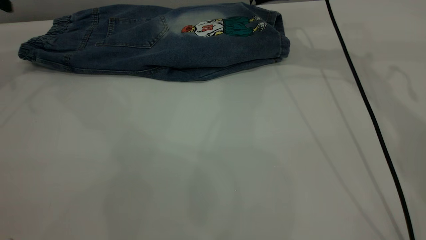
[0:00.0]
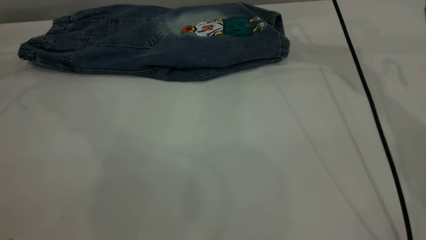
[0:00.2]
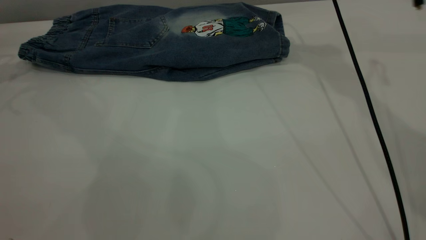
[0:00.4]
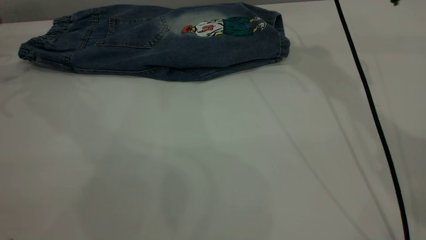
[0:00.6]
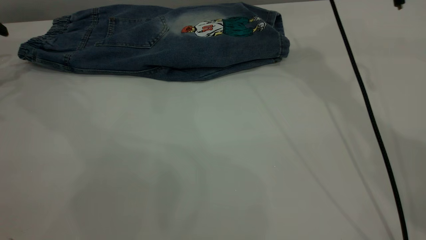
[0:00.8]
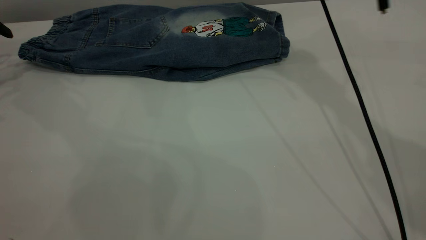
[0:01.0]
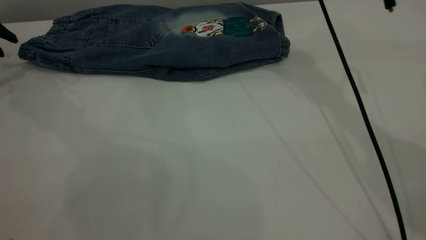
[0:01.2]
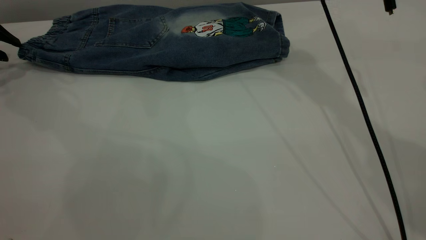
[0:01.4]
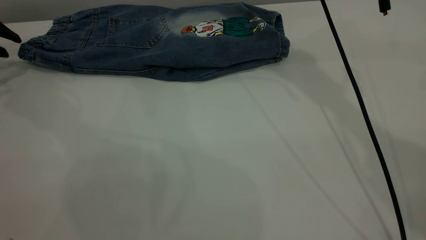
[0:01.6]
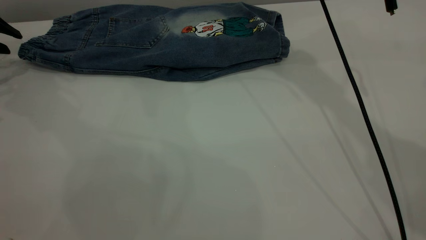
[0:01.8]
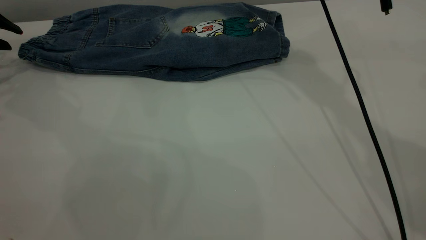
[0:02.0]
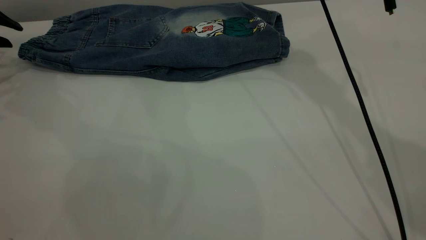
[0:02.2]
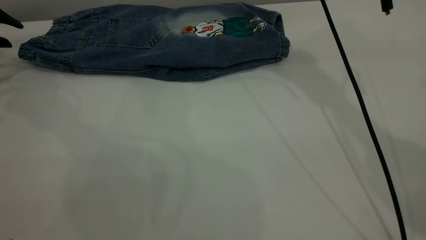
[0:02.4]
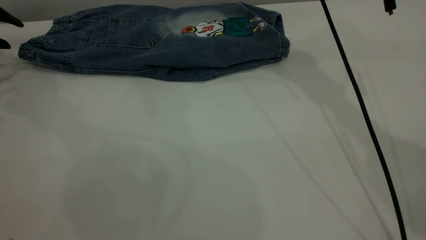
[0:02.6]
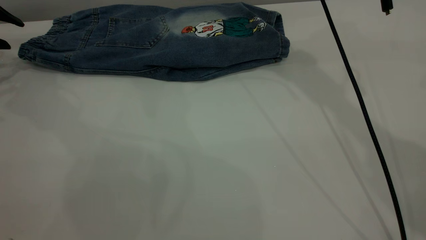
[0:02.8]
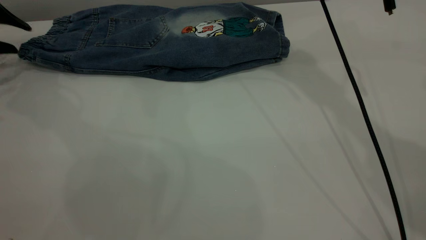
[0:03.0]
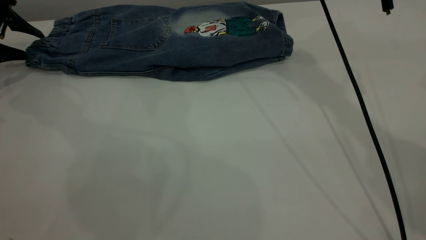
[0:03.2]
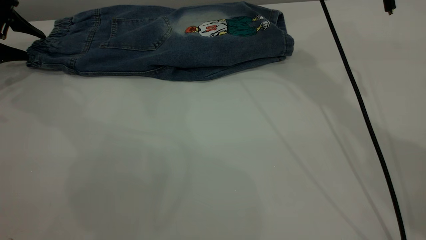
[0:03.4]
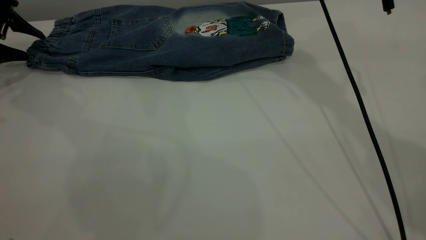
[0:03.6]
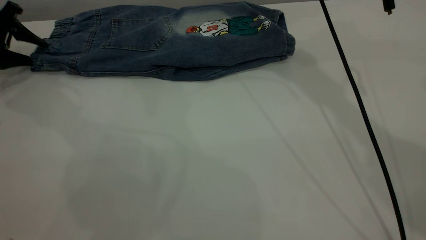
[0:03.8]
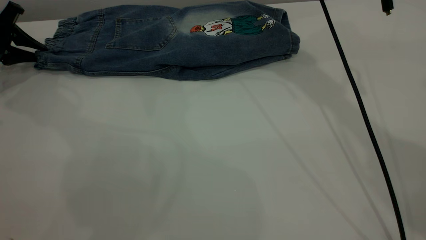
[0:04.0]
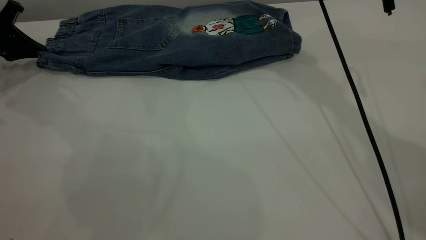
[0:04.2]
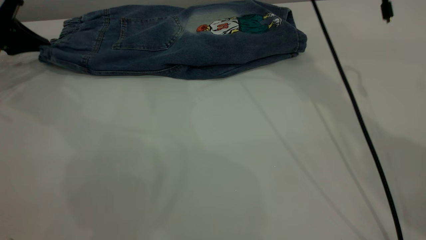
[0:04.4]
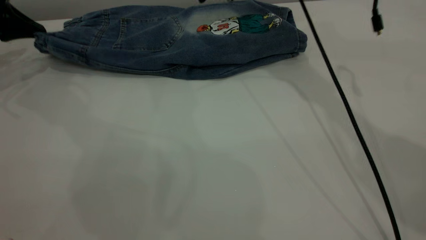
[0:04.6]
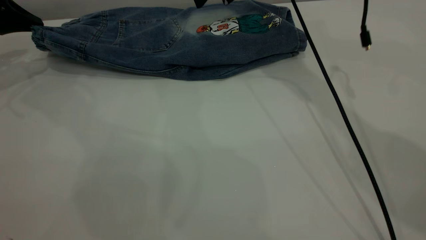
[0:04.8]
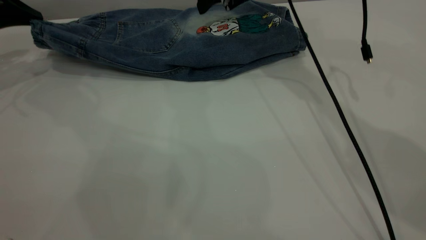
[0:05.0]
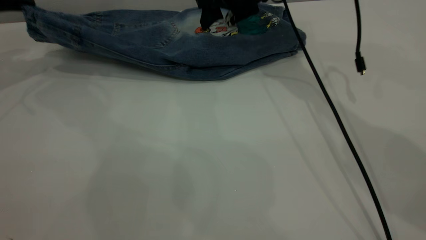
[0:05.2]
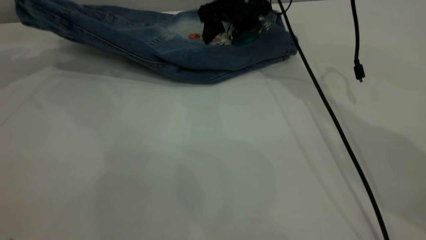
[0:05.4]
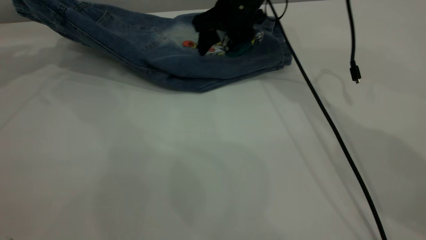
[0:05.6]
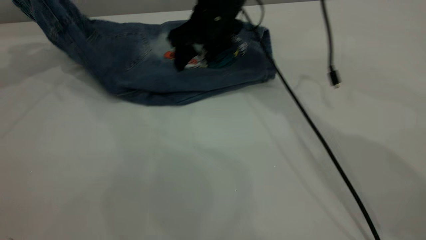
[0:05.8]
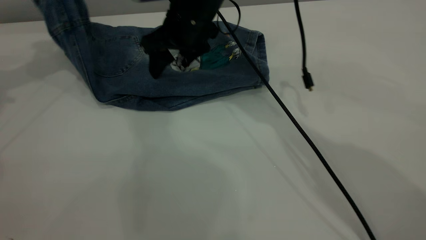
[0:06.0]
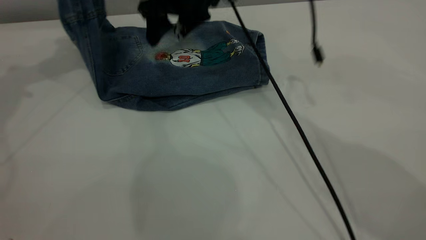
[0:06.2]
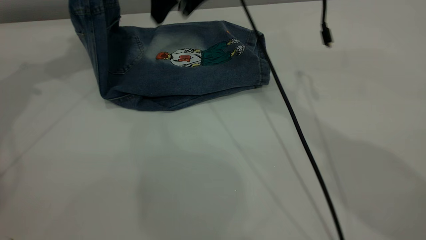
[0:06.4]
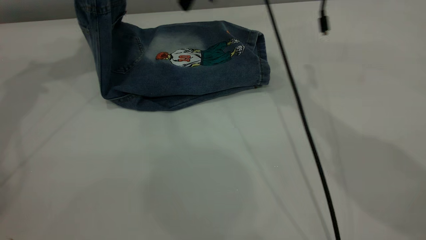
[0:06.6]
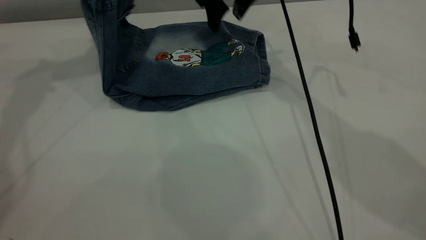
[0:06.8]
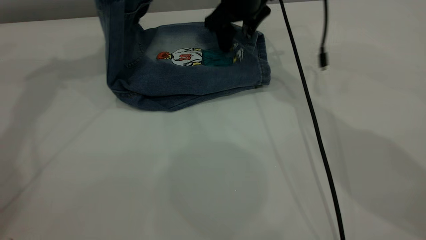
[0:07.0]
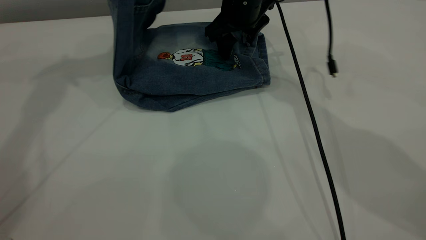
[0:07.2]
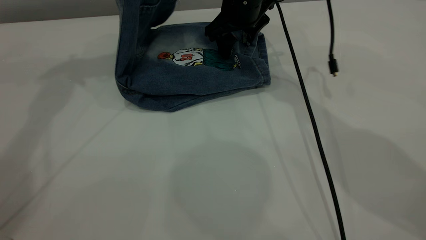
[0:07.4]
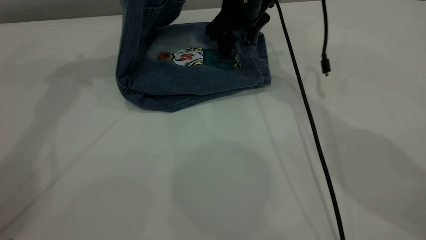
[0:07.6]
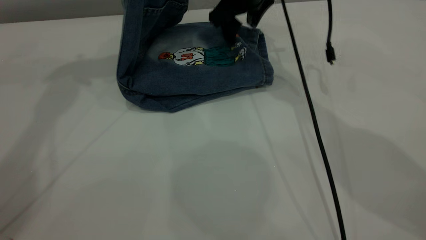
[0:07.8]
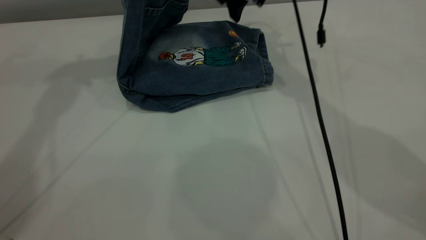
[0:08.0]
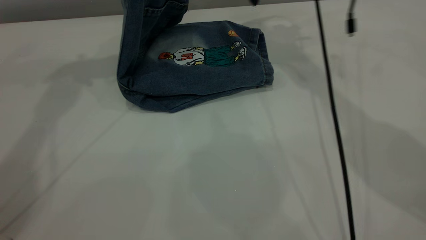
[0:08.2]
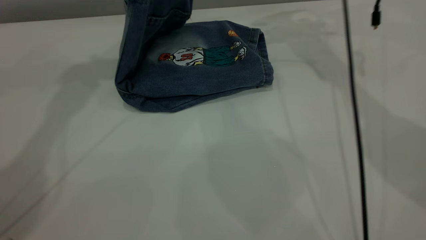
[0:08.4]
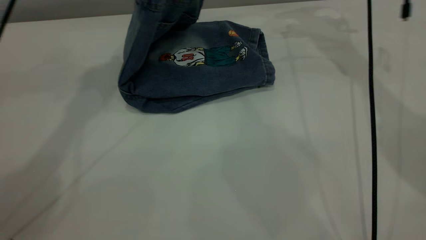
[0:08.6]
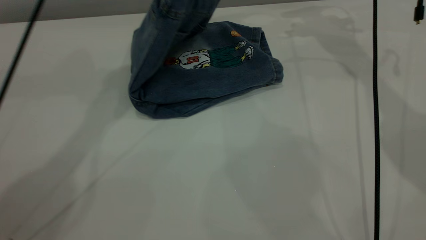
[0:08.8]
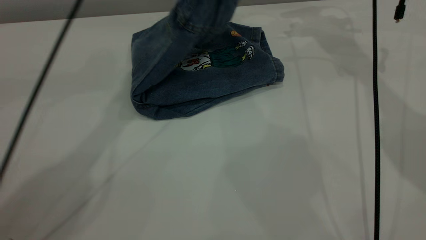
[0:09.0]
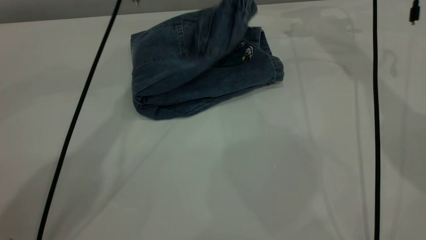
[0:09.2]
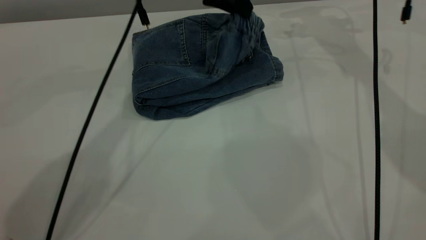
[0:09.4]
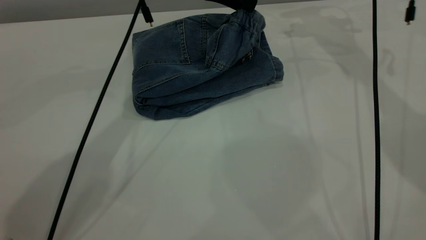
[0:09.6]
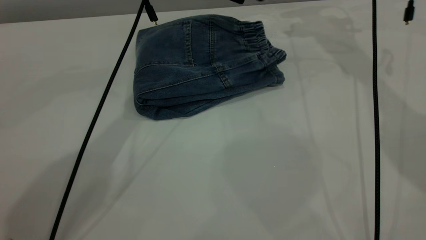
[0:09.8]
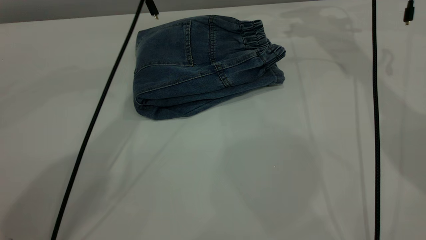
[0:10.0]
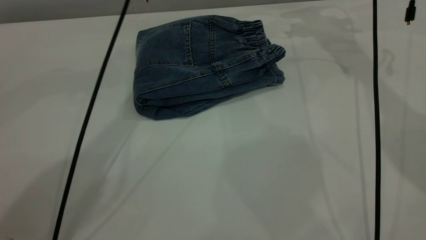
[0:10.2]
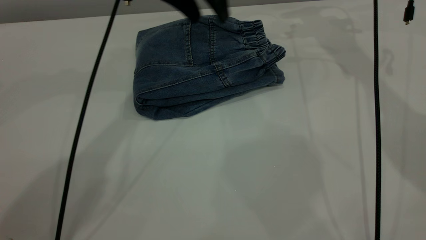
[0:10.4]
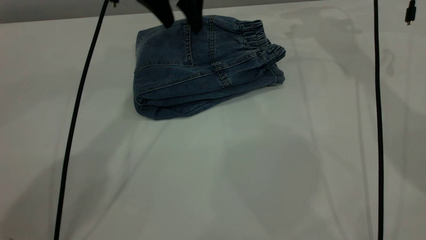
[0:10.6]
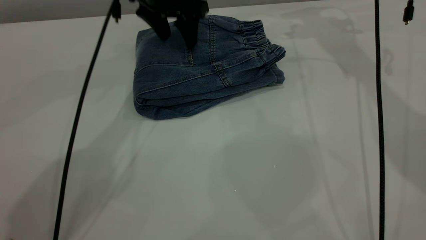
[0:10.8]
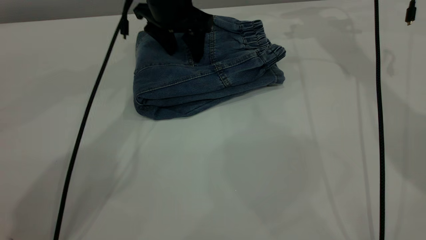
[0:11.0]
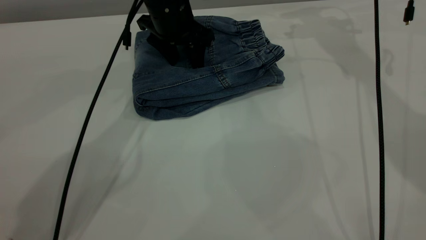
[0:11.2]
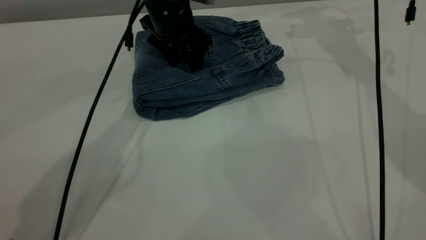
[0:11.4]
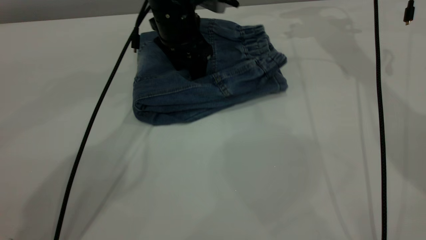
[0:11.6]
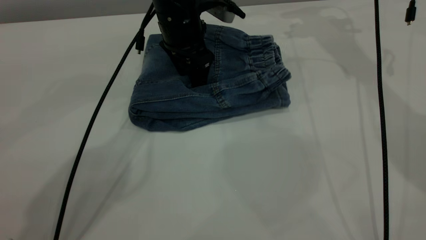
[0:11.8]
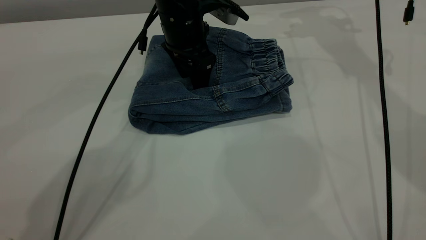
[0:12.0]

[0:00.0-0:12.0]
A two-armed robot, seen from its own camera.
Step, 0:00.0 to 0:10.0: Fold the pants from left to right.
0:00.0 to 0:01.6: The right gripper goes about 10 cm to the left and upward.
0:01.6 to 0:03.0: The grippers move only a little.
0:03.0 to 0:04.4: The left gripper closes.
0:04.4 to 0:06.0: The right gripper is displaced to the left and downward by about 15 cm; the left gripper is displaced upward and to the right by about 15 cm.
0:06.0 to 0:07.6: The right gripper is displaced to the right and forward by some 10 cm, and travels upward and back again, about 5 cm each way, while the left gripper moves to the right and upward, about 15 cm.
0:07.6 to 0:09.0: The right gripper goes about 15 cm to the right and upward; the left gripper goes roughly 15 cm to the right and downward.
0:09.0 to 0:10.4: The left gripper opens.
0:10.4 to 0:12.0: The left gripper shifts some 10 cm downward.

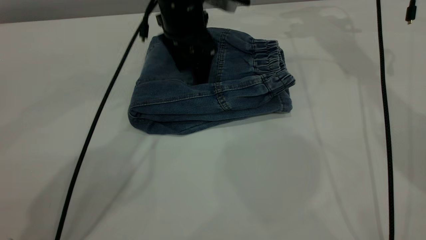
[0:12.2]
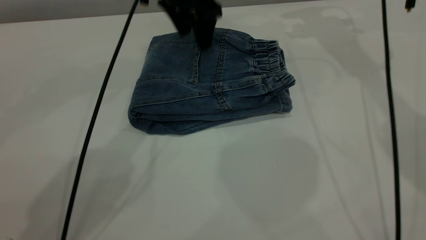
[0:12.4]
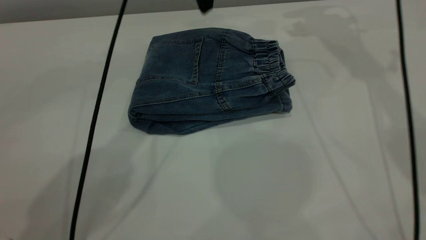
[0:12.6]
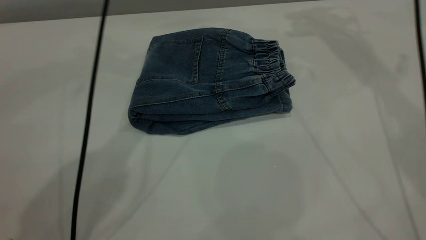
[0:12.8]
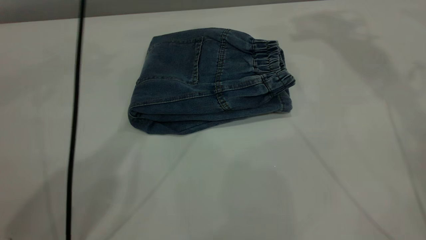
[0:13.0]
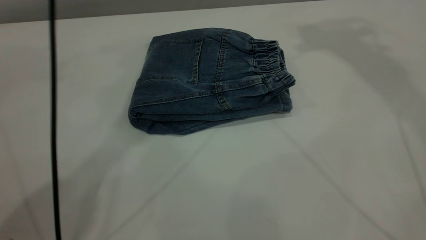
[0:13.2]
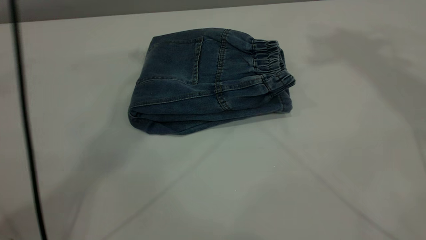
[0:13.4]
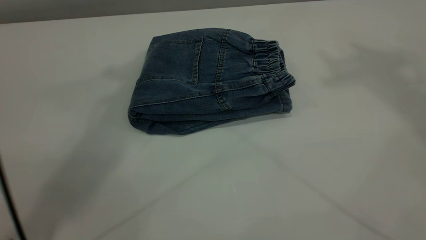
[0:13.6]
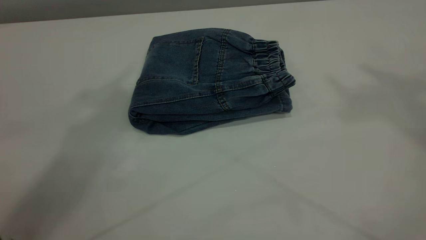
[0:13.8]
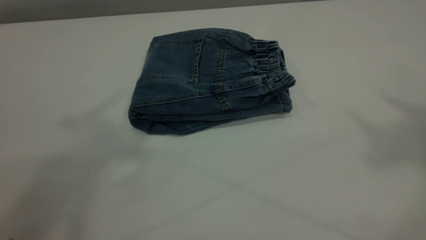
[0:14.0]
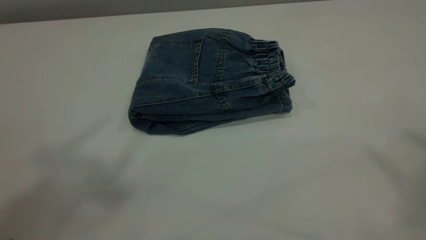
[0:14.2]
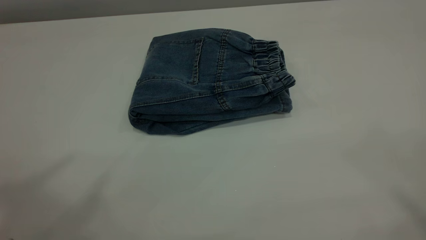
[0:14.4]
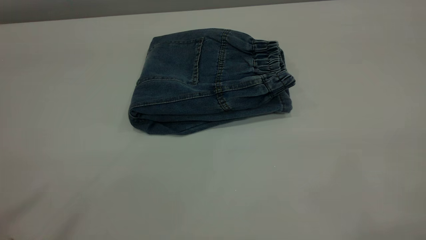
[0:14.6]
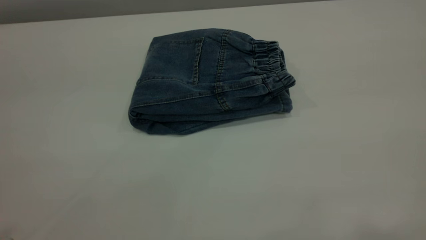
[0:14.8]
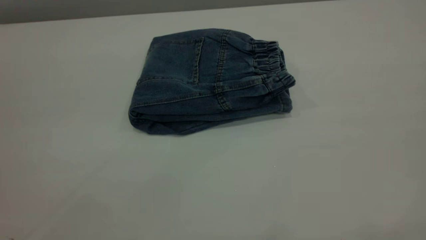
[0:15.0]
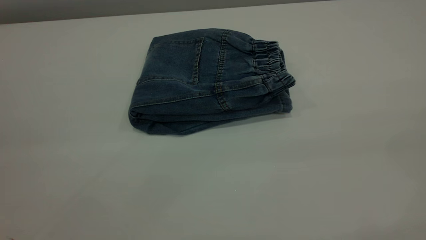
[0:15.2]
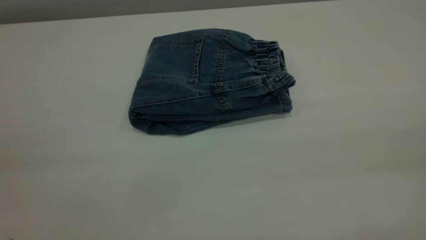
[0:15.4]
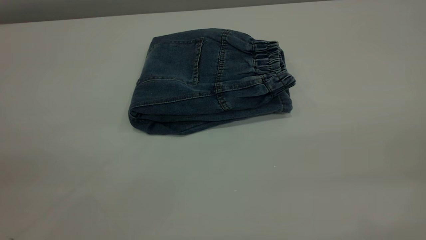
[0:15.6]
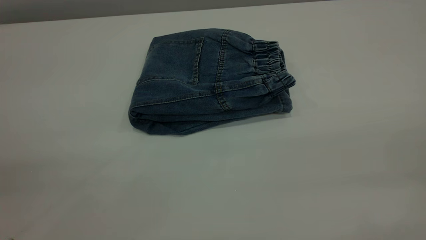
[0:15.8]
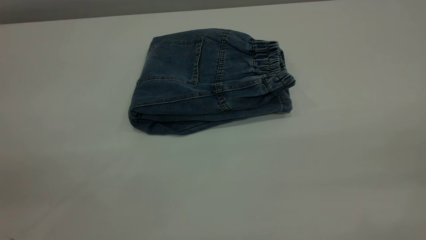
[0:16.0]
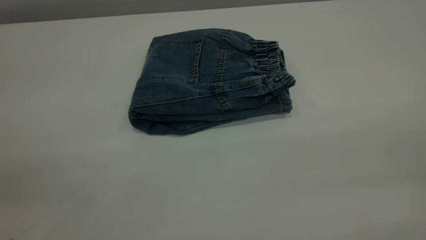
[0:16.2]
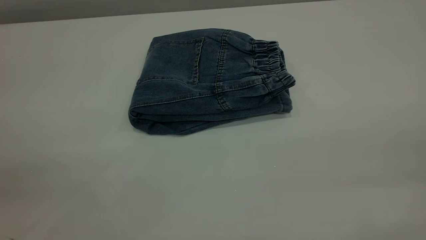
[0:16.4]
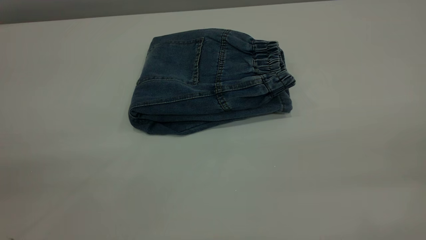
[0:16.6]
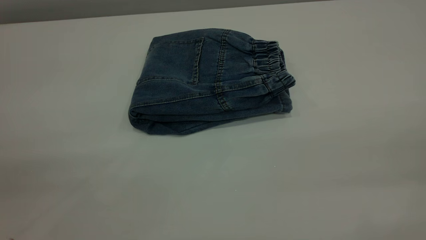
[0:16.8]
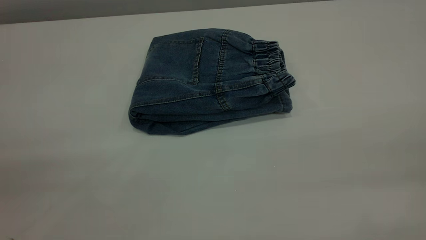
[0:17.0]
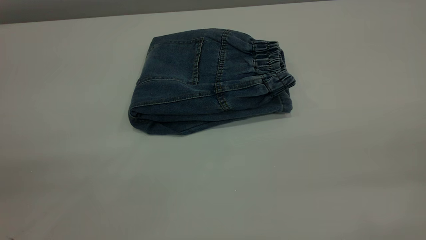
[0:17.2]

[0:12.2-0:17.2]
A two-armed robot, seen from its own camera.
0:12.2 to 0:13.8: The left gripper heads upward, covering about 50 cm; the right gripper travels upward and backward by some 50 cm.
0:13.8 to 0:15.6: The left gripper moves backward, downward and to the left, roughly 40 cm.
